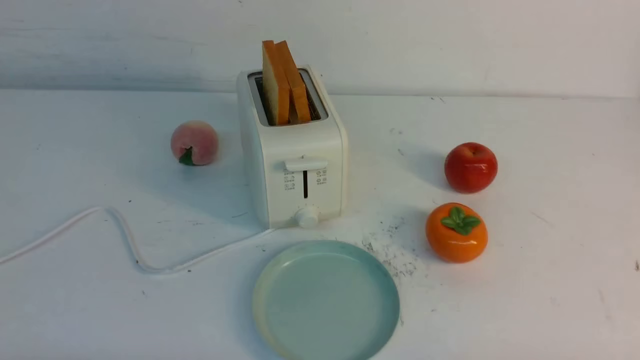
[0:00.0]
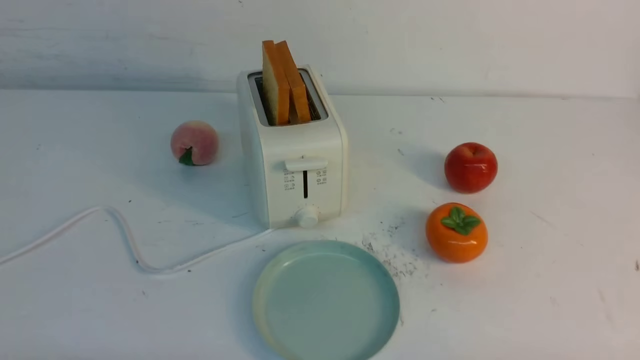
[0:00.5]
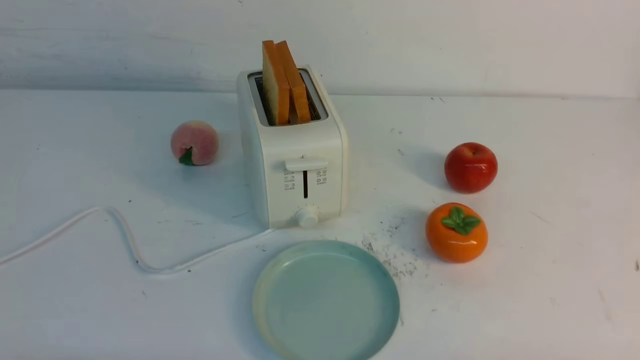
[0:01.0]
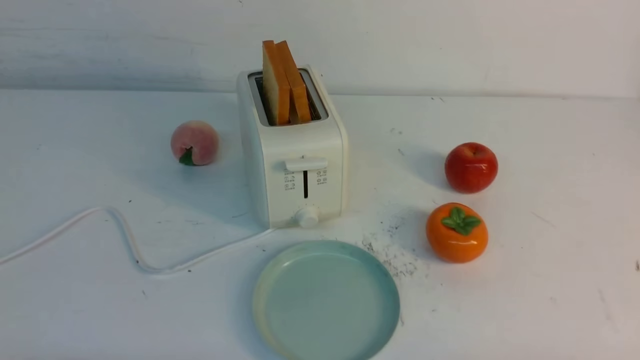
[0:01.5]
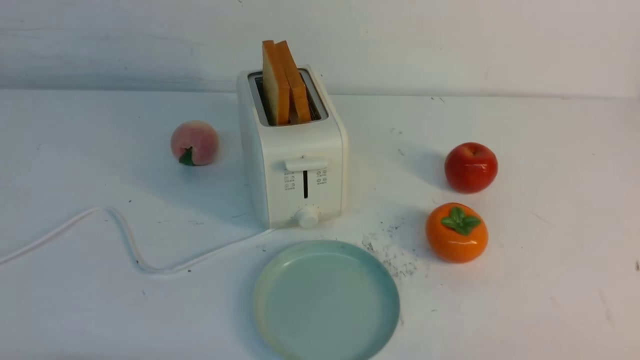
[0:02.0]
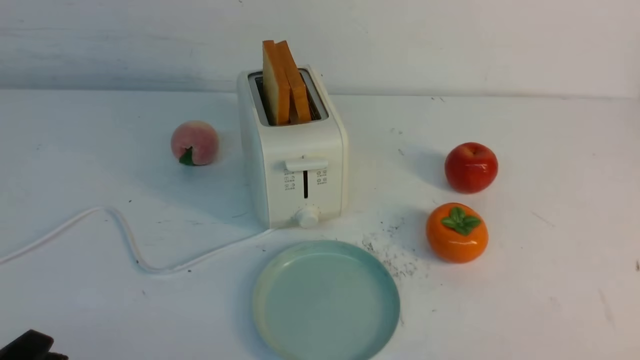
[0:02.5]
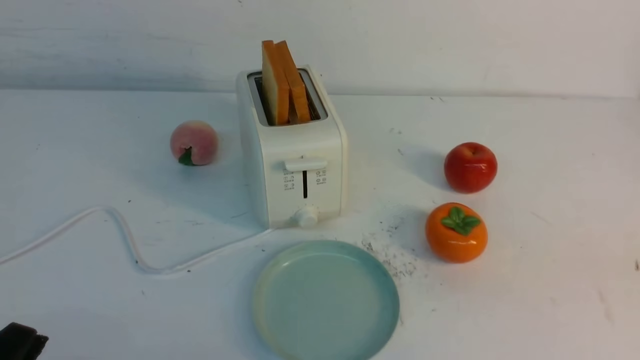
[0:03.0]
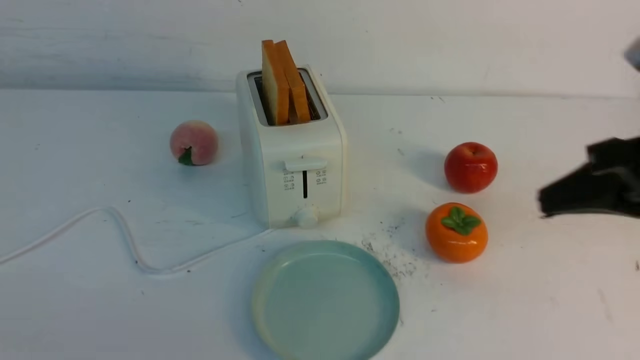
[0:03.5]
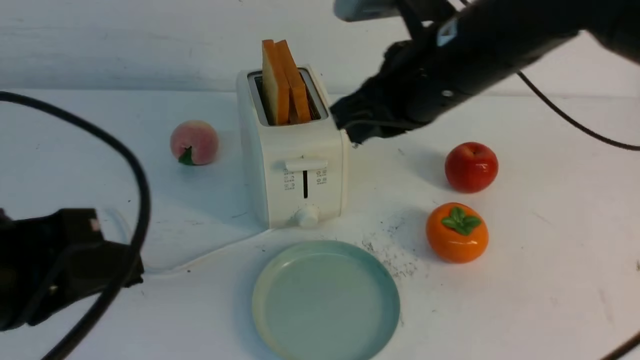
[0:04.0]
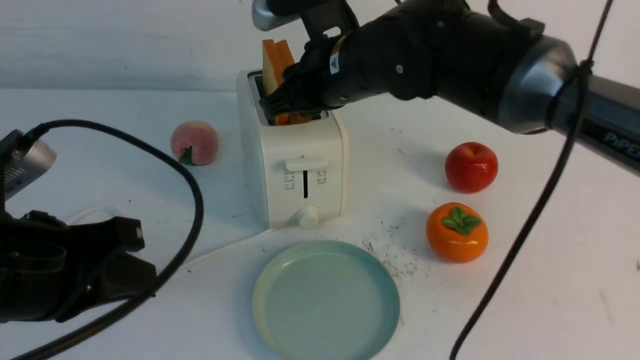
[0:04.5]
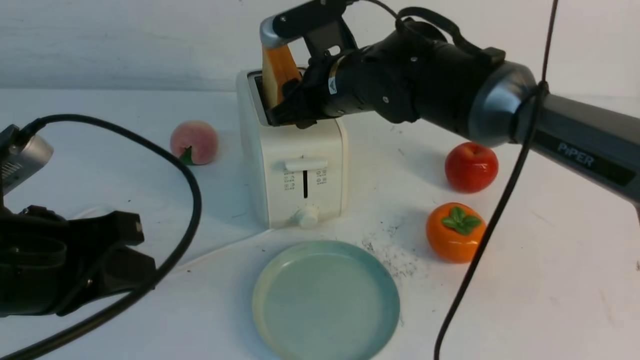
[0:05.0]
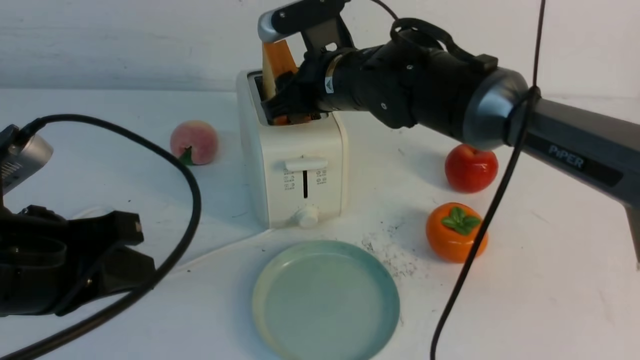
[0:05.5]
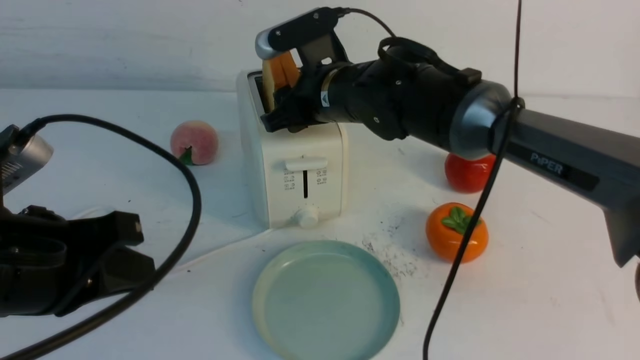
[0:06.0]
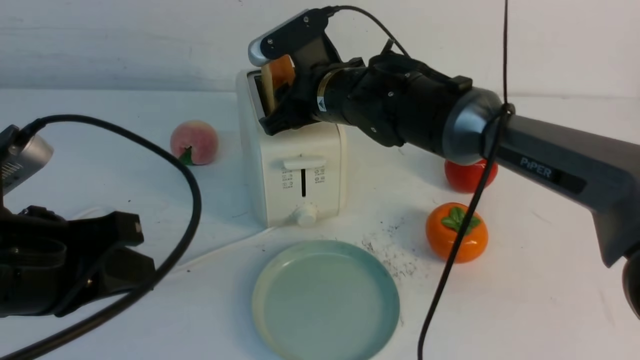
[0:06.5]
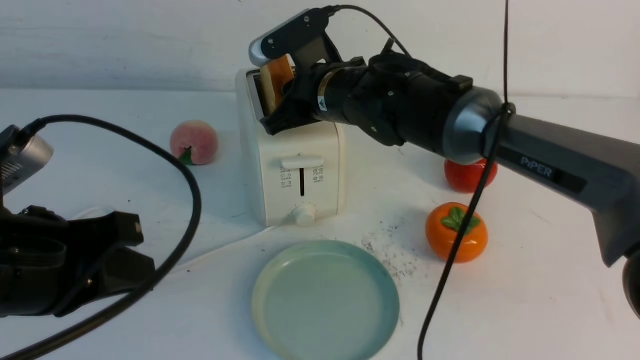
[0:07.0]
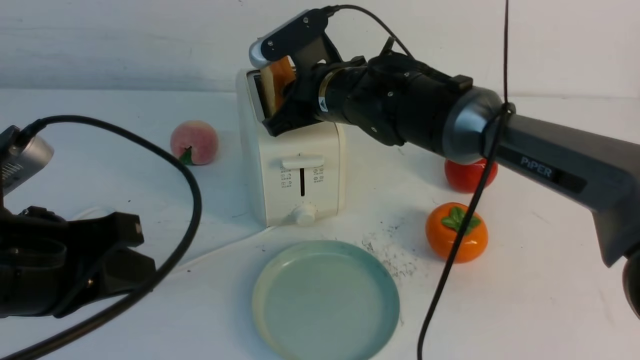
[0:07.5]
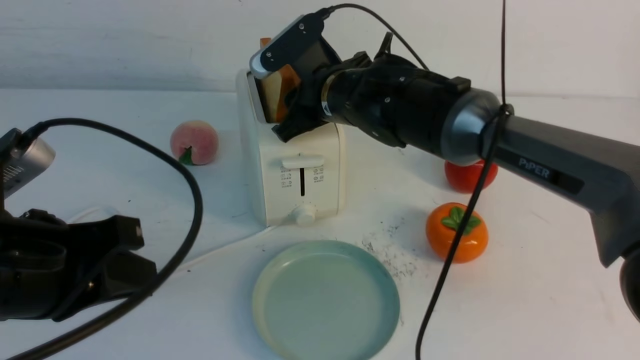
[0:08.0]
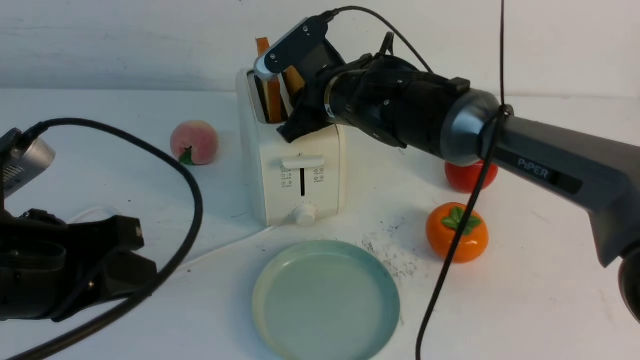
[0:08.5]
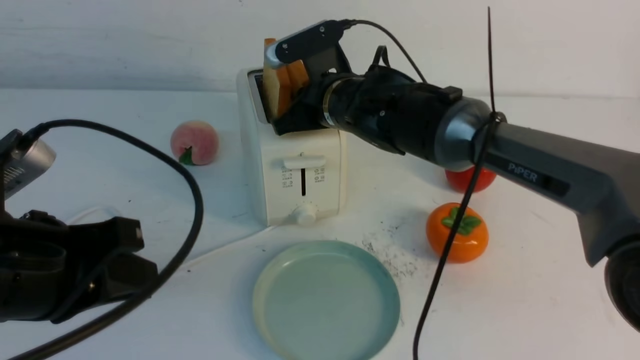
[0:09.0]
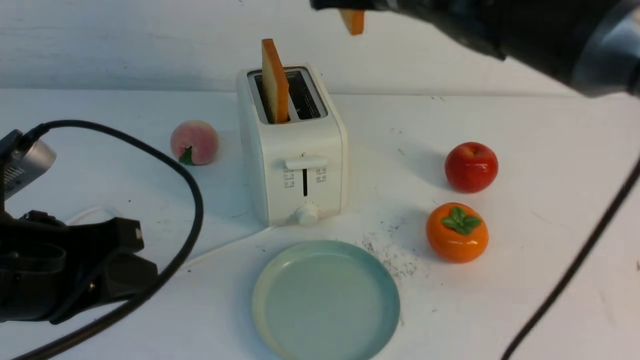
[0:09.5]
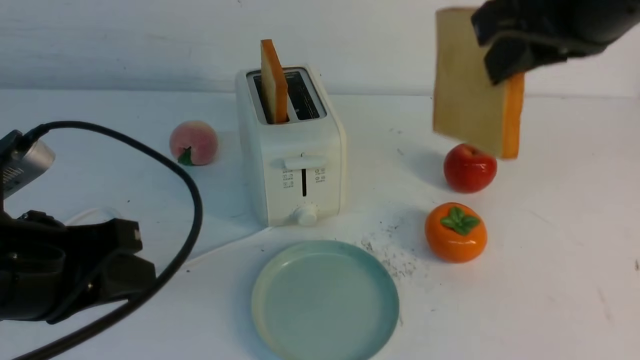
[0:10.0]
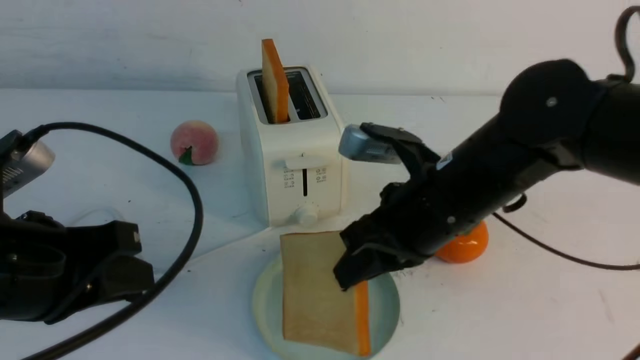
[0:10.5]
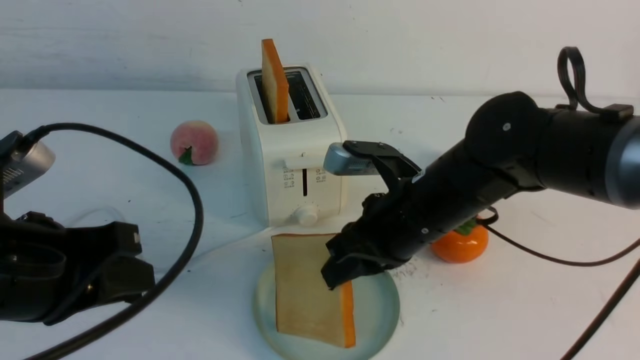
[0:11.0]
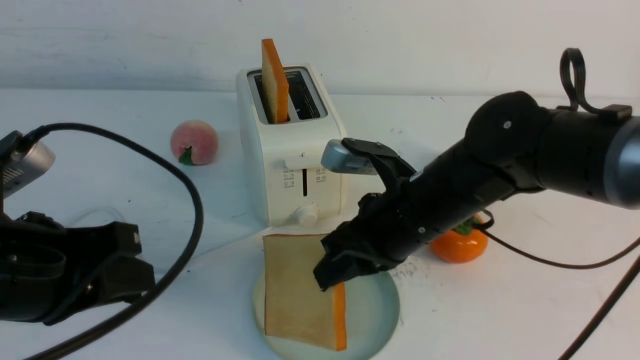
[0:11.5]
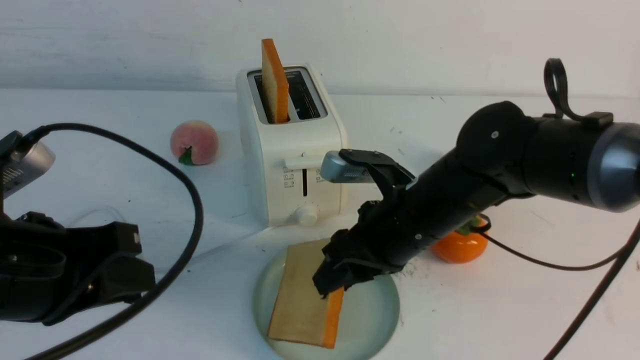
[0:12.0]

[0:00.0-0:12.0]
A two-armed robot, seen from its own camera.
Task of the whole recording: take toasted bread from bread machine on white table place on plate.
Step, 0:00.0 to 0:09.0: use the right arm to take out a slice of bread.
0:02.0 to 0:04.0: The left gripper shifts some 15 cm upward and forward, and closes its fingers. The right gripper moves forward, to the left and upward, some 40 cm, and closes.
0:04.0 to 0:06.0: The right gripper is displaced forward, downward and to the left by about 15 cm, and opens.
0:06.0 to 0:08.0: The right gripper closes and opens again.
0:08.0 to 0:10.0: The right gripper travels backward, upward and to the right by some 25 cm, and closes its fingers.
0:10.0 to 0:12.0: The right gripper goes roughly 20 cm downward, and opens.

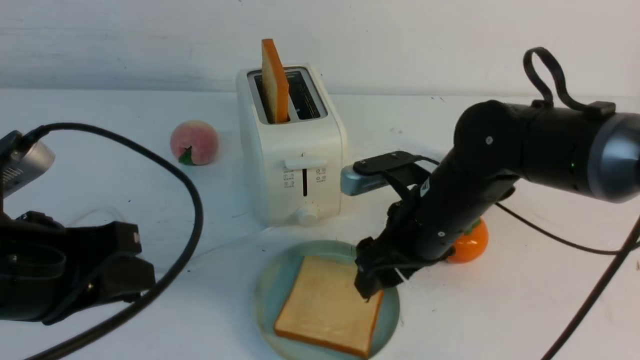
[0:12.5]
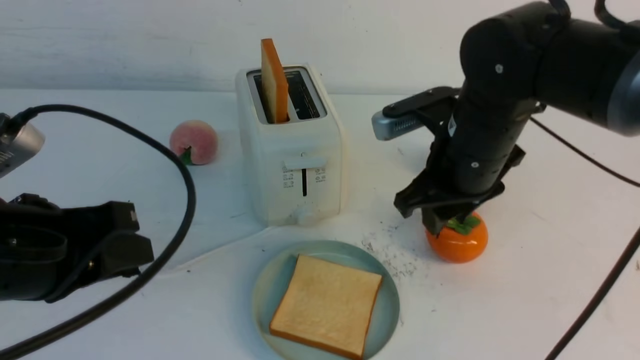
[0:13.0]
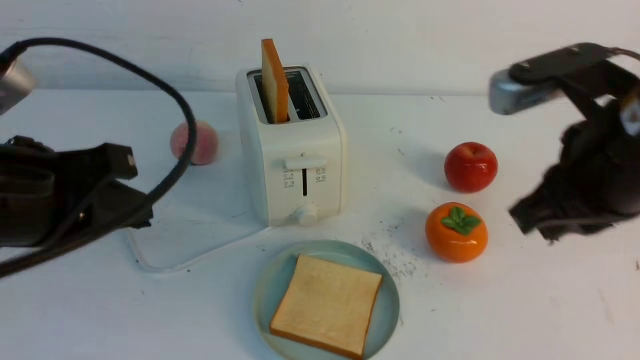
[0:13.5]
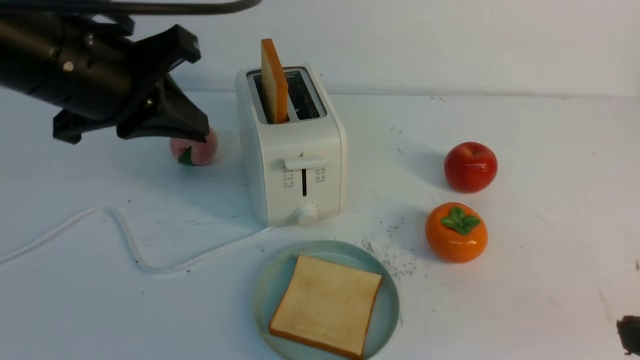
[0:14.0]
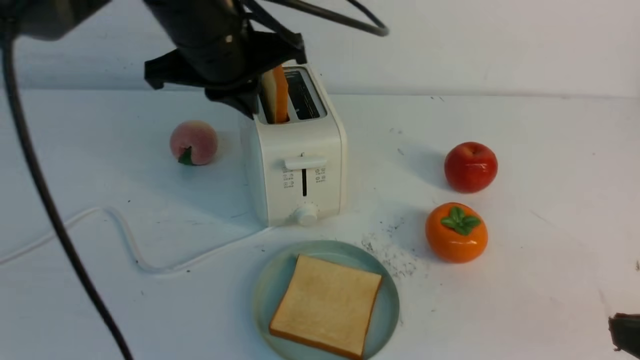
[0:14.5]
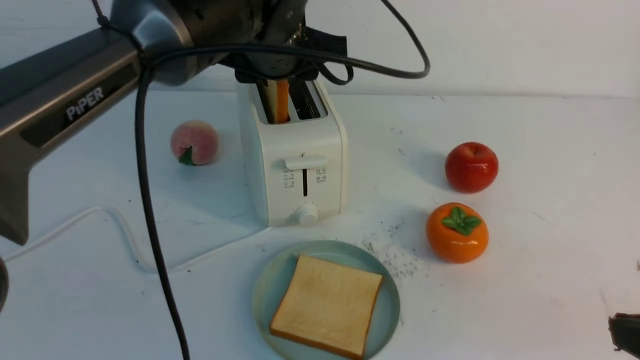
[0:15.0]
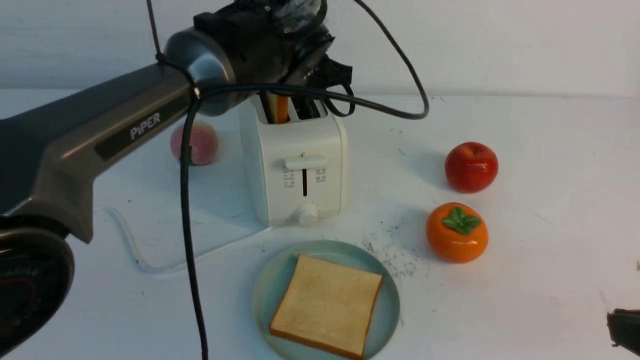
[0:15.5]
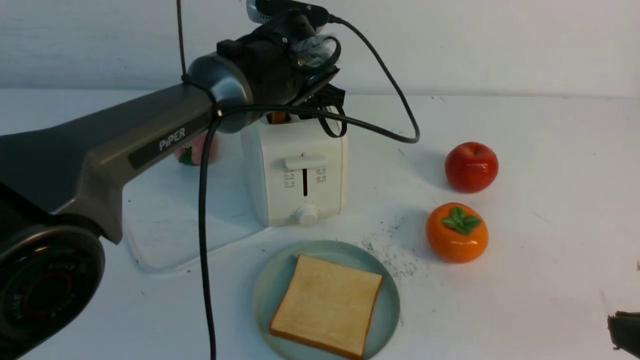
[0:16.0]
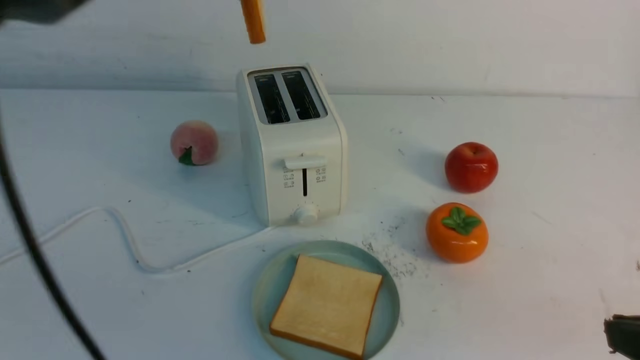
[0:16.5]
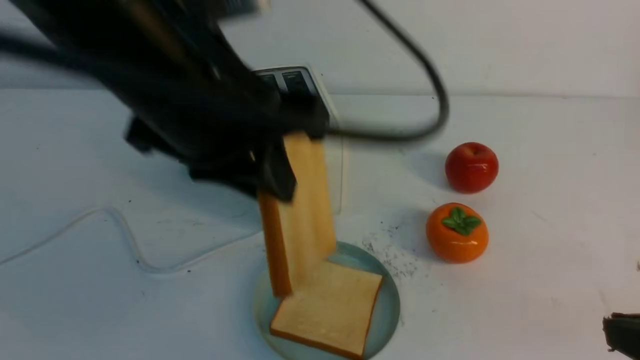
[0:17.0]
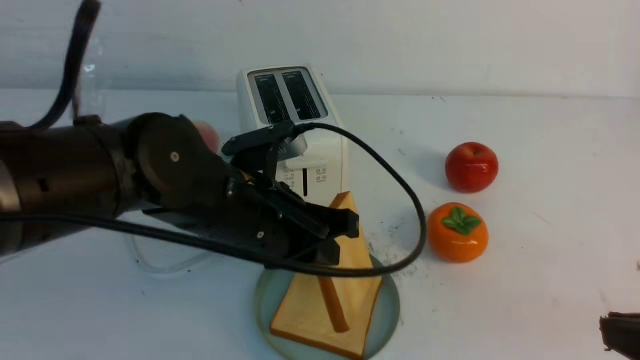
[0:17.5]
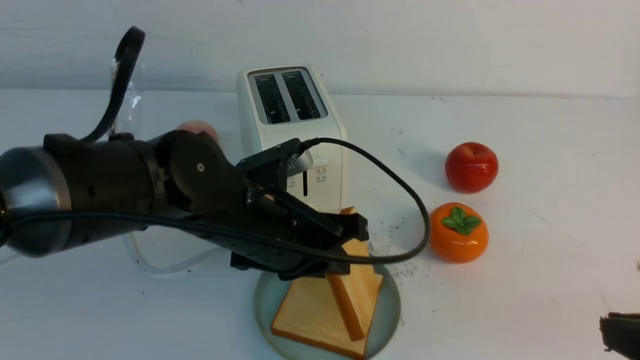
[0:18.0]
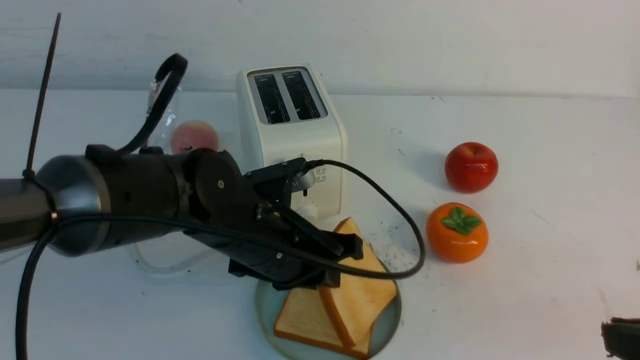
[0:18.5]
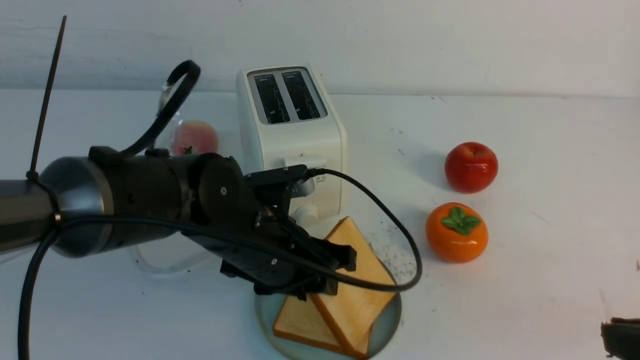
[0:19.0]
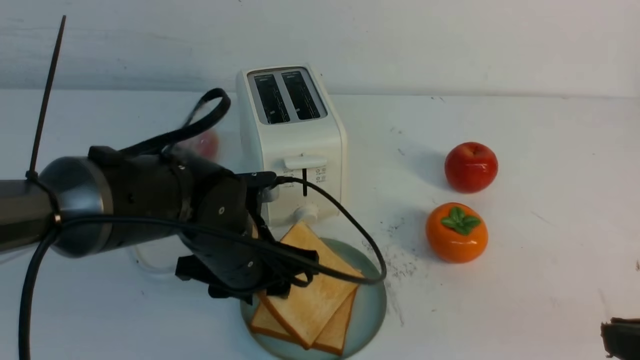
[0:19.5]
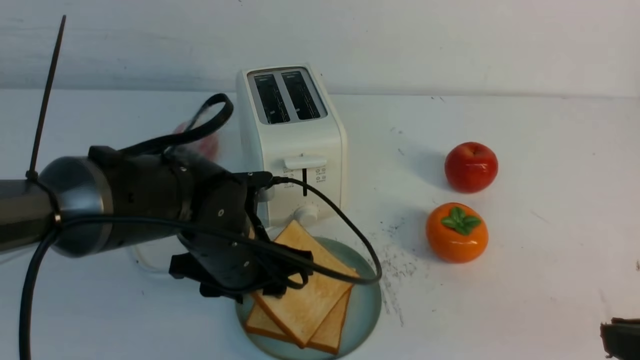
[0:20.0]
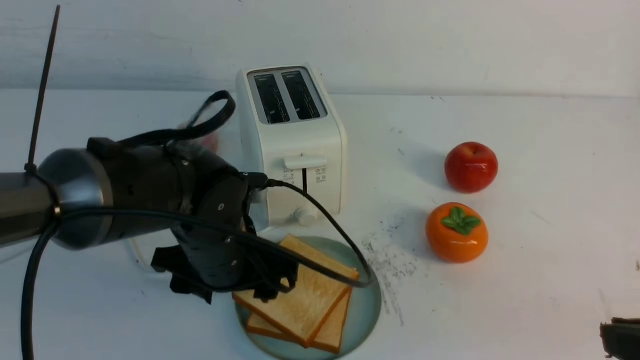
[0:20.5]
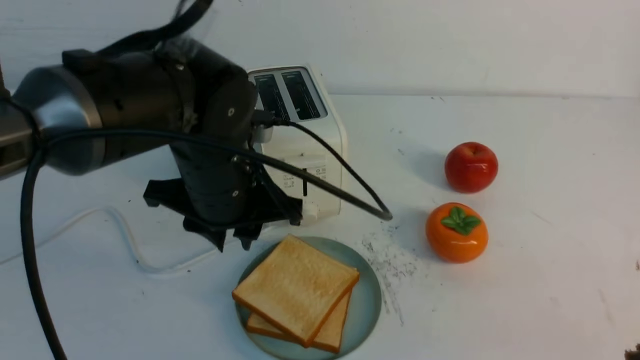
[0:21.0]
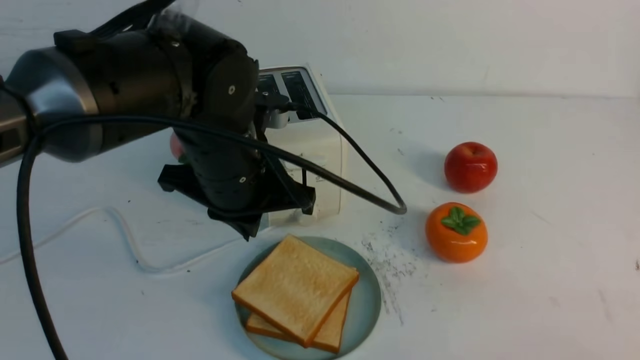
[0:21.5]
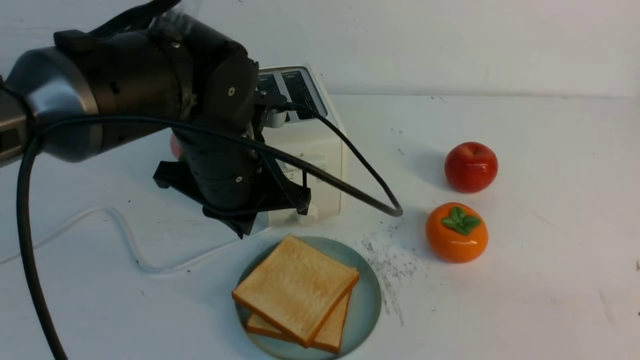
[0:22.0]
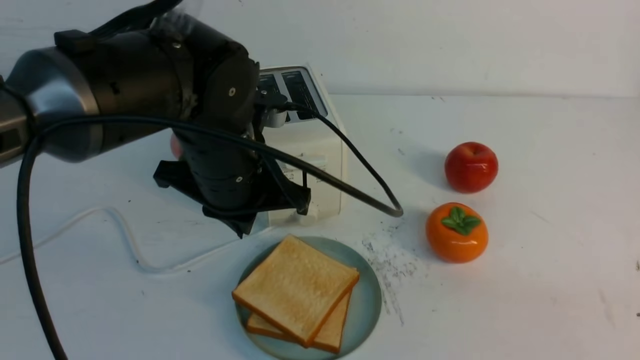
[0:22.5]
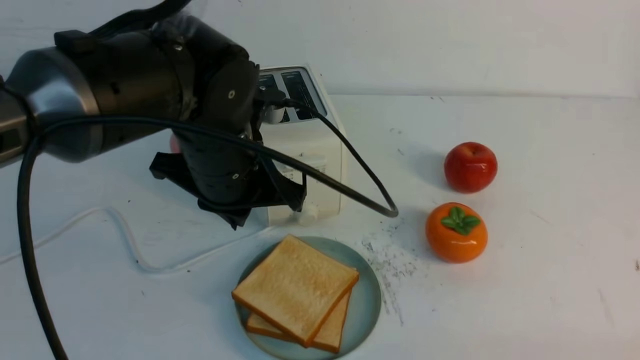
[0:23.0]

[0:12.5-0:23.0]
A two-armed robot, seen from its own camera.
Task of the whole recording: take toasted bread from bread machine on white table place on plate.
Step, 0:13.0 to 0:16.0: use the left arm to take out a slice of bread.
Step, 0:16.5 to 0:20.5: use the left arm to put a slice of bread into the empty plate.
0:12.5 to 0:14.5: The left gripper goes about 20 cm forward and to the right. The right gripper goes some 25 cm backward and to the right, and closes.
0:14.5 to 0:16.5: The left gripper moves upward, roughly 10 cm, and opens, then closes again.
0:16.5 to 0:19.0: The left gripper goes some 25 cm downward, and opens its fingers.
0:19.0 to 0:21.0: The left gripper goes some 5 cm upward.
0:21.0 to 0:23.0: The left gripper closes up, while the right gripper moves downward, some 10 cm.
